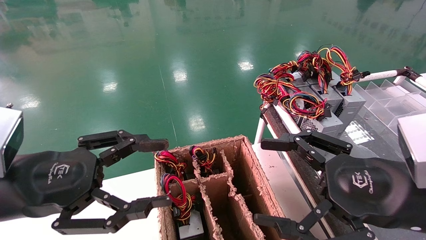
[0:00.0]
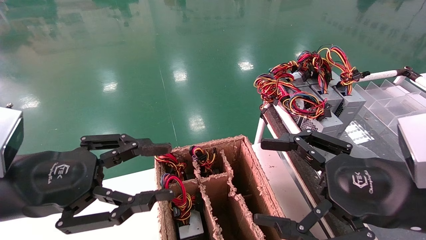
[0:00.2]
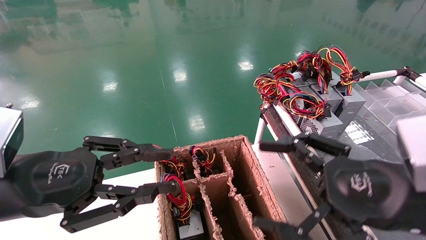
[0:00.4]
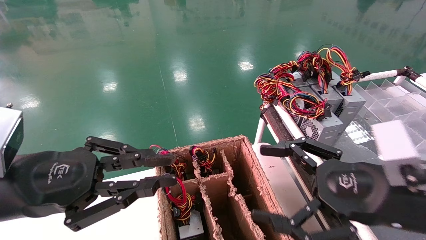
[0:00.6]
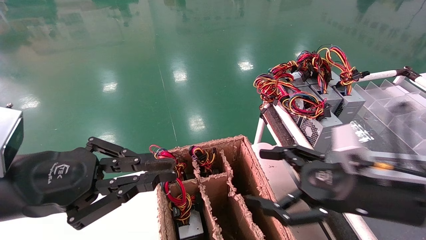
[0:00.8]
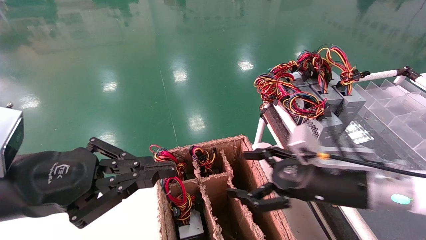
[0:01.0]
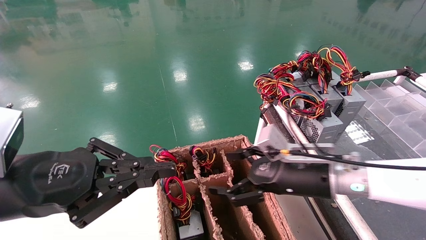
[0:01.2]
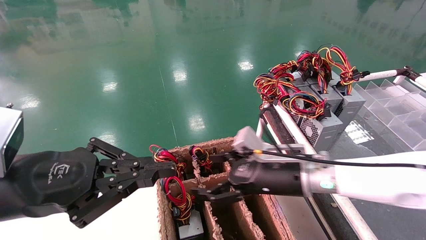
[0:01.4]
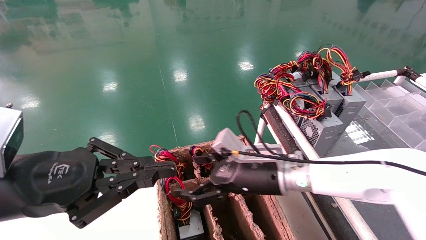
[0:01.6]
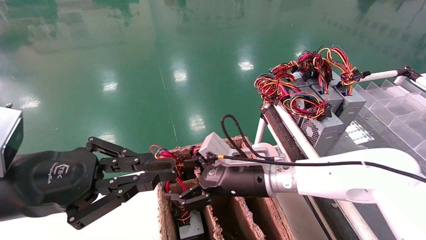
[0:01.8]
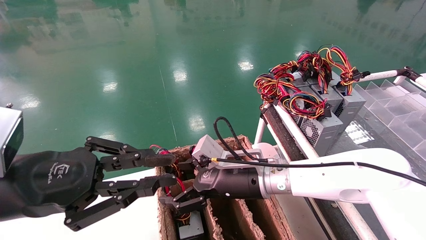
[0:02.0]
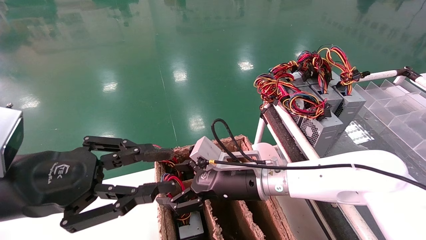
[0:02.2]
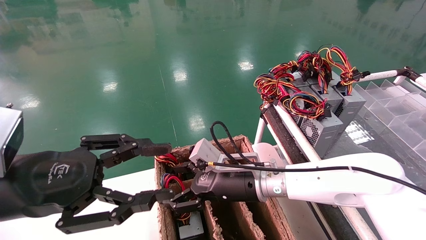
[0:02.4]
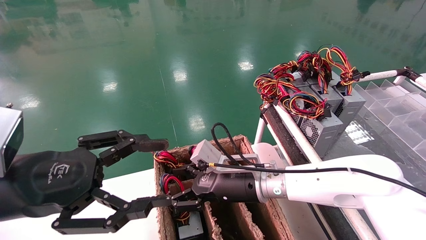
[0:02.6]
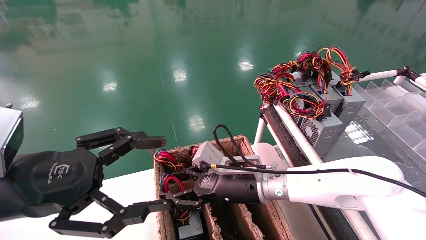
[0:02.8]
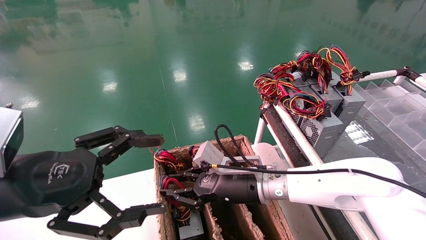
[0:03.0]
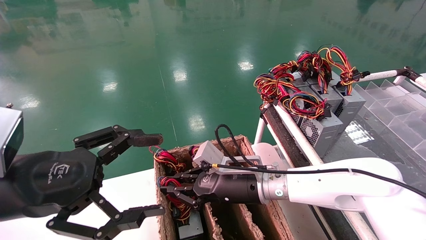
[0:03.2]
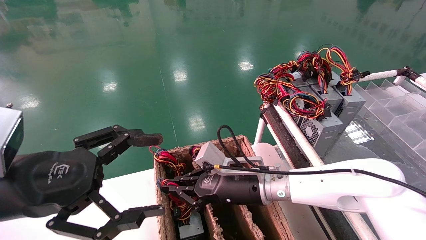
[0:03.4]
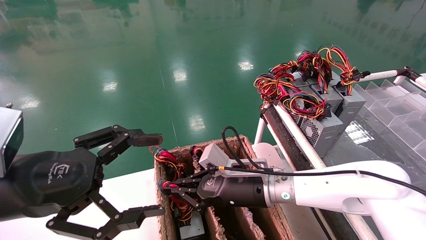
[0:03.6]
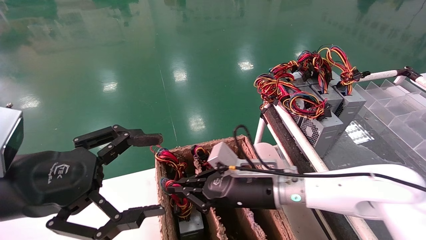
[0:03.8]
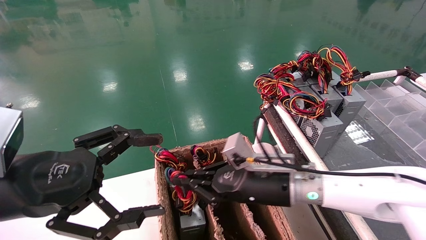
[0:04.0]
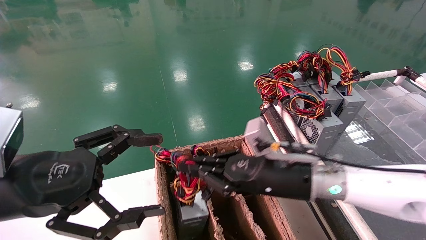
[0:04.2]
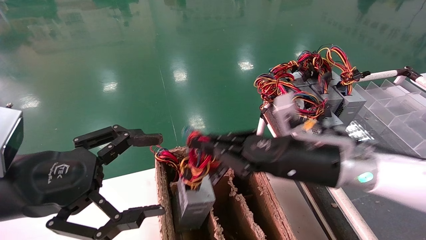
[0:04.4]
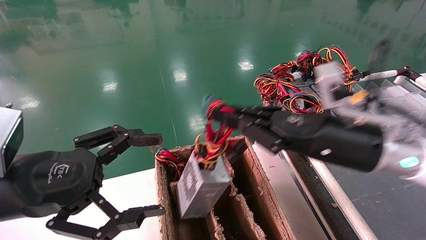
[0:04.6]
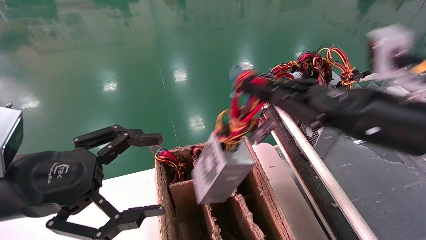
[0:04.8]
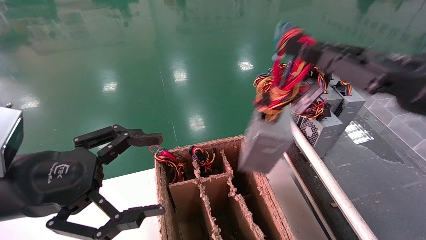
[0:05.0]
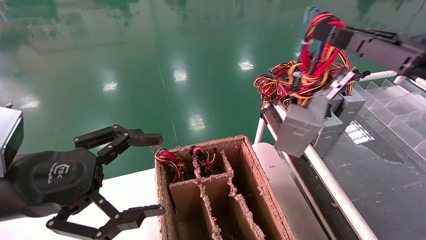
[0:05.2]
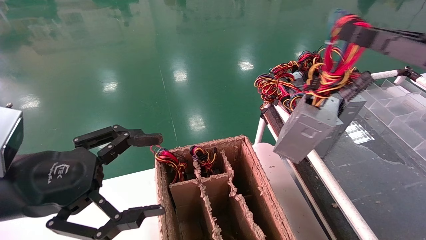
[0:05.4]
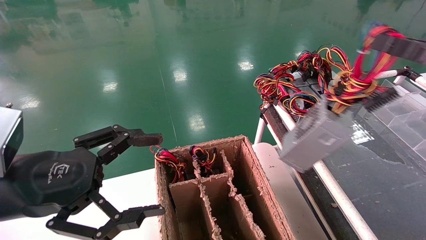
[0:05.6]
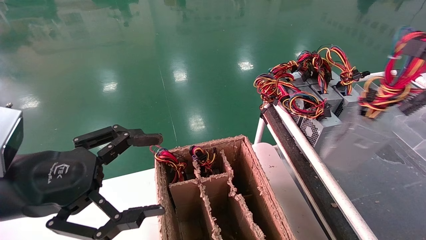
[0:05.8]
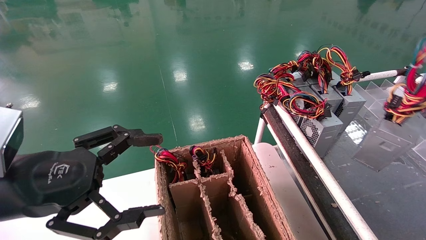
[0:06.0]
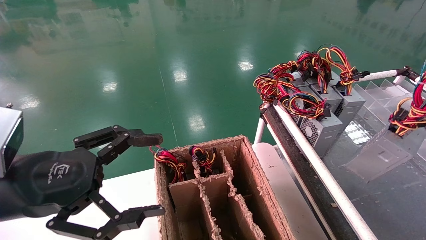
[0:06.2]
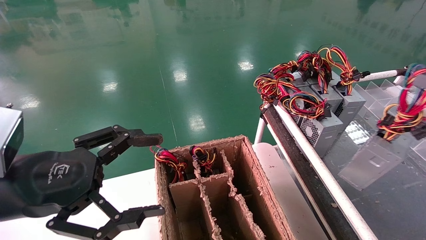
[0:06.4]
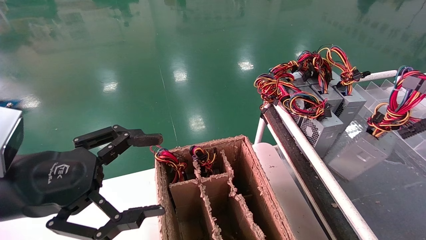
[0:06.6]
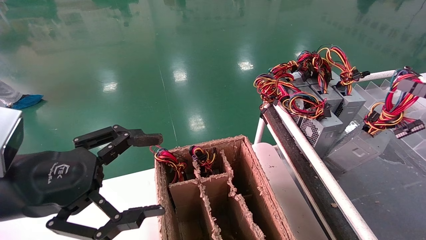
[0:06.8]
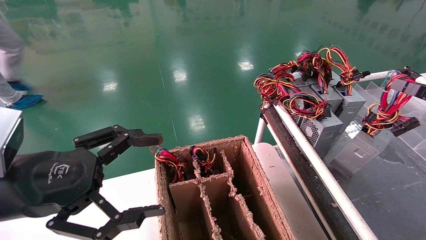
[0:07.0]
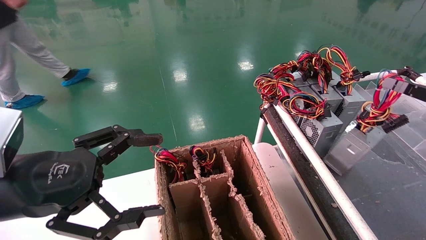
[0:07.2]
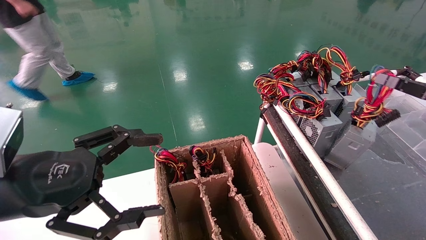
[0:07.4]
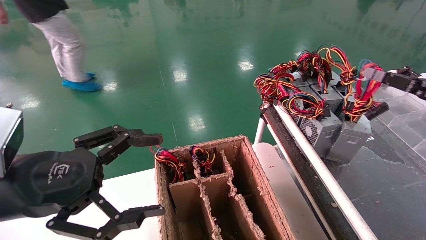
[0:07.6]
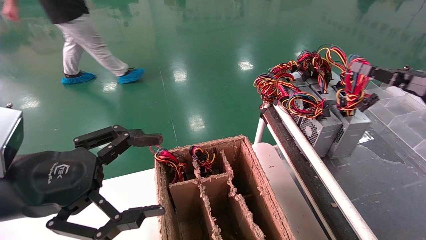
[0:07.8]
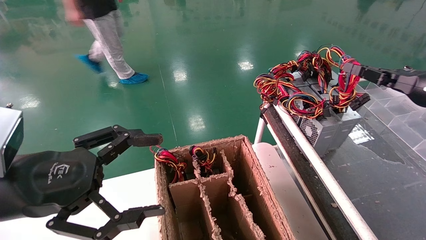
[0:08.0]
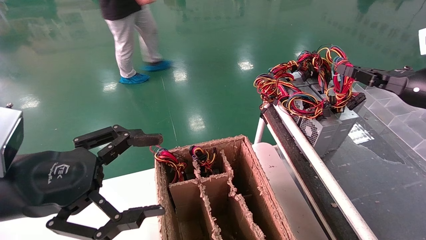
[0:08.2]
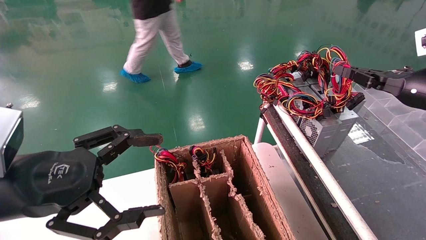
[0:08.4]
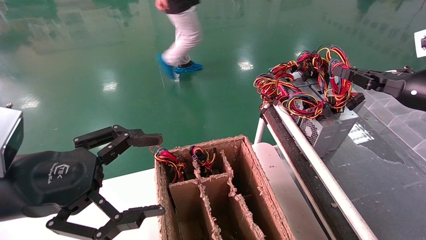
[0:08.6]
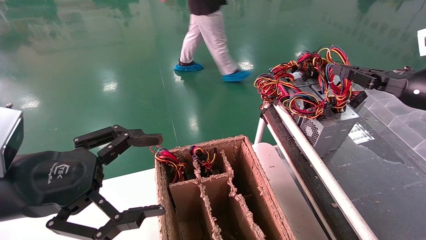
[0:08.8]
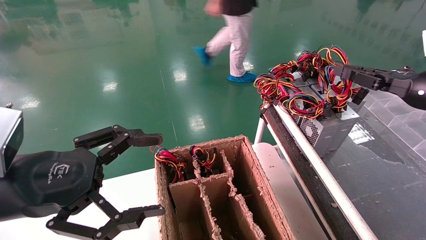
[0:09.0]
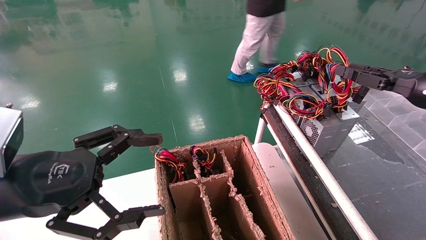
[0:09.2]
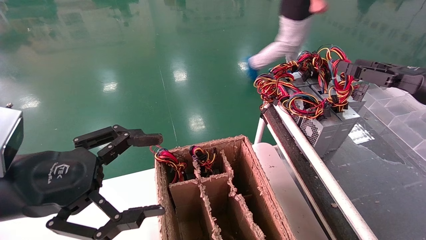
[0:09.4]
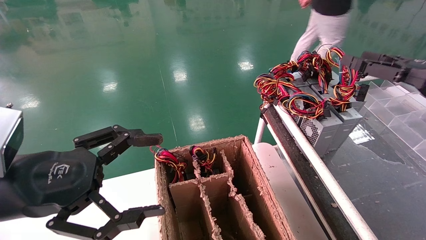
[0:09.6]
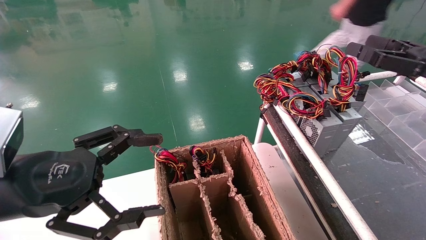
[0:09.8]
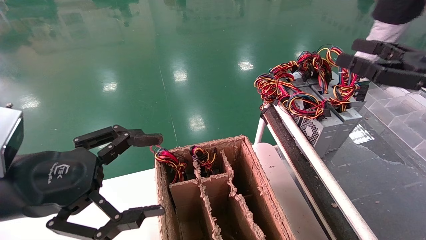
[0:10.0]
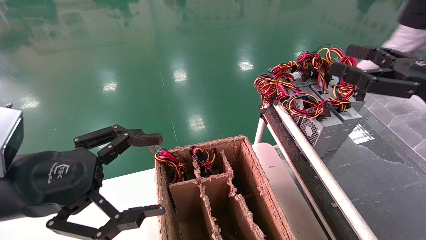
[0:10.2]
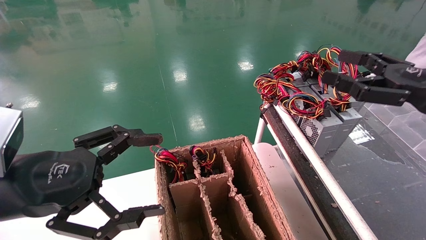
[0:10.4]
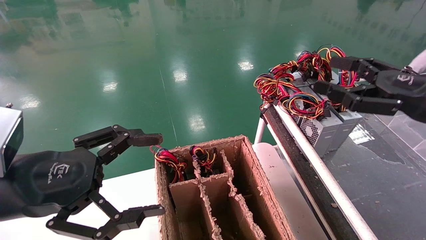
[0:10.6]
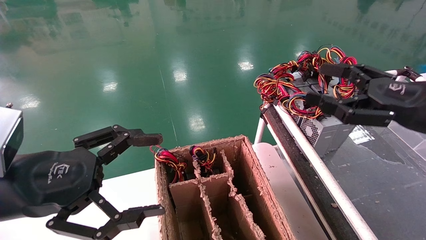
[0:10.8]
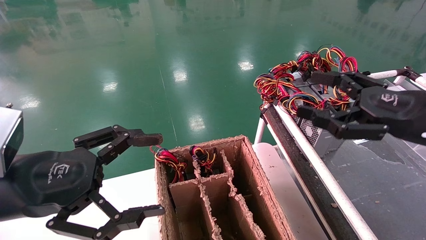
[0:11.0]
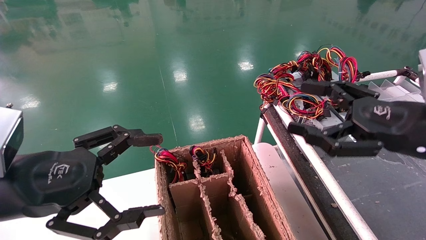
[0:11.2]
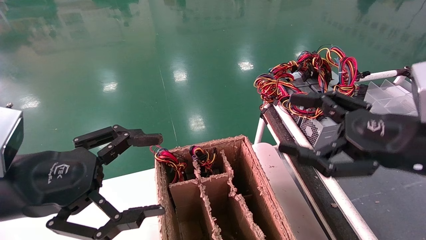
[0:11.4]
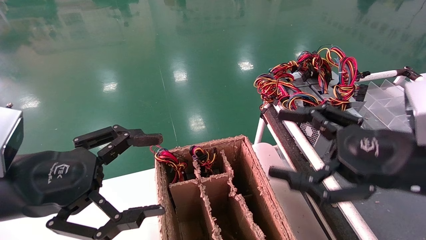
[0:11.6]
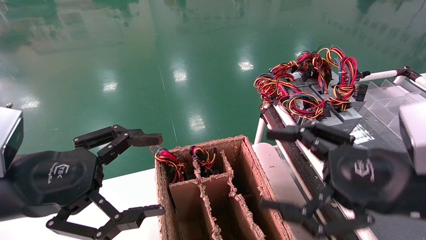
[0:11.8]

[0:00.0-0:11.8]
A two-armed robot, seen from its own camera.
Step, 0:01.2 to 0:03.2: Grab and lift the power supply from the large box.
Step, 0:03.4 to 0:08.8: Place the power supply on the operating table.
0:00.0 to 0:01.4: The right gripper is displaced forward, to the left and downward by some 20 cm. Meanwhile the left gripper closes its fingers.
0:01.4 to 0:03.0: The left gripper opens, while the right gripper shifts roughly 5 cm to the left, and closes up.
0:03.0 to 0:04.4: The right gripper is displaced to the right, upward and backward by roughly 15 cm, and closes its fingers.
0:04.4 to 0:06.0: The right gripper shifts about 30 cm to the right.
0:06.0 to 0:07.4: The right gripper heads forward, covering roughly 10 cm.
0:07.4 to 0:08.8: The right gripper shifts approximately 5 cm to the left.
0:08.8 to 0:10.4: The right gripper travels backward by approximately 5 cm, and opens.
0:10.4 to 0:11.8: The right gripper moves to the left, backward and downward, some 15 cm.
